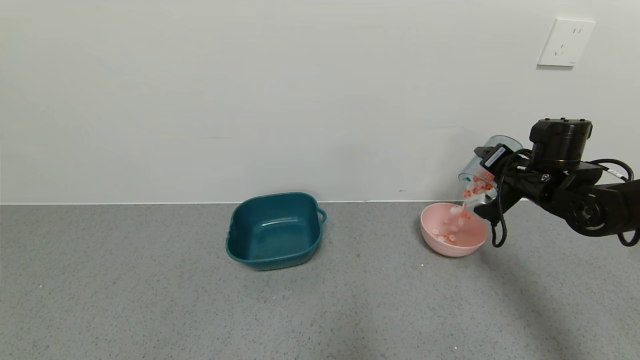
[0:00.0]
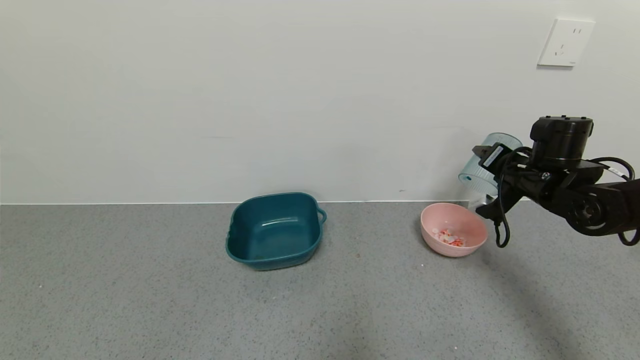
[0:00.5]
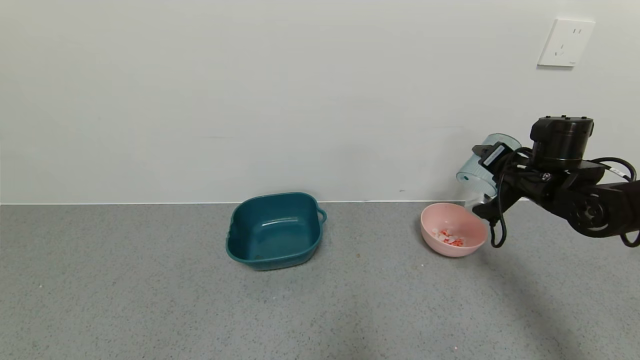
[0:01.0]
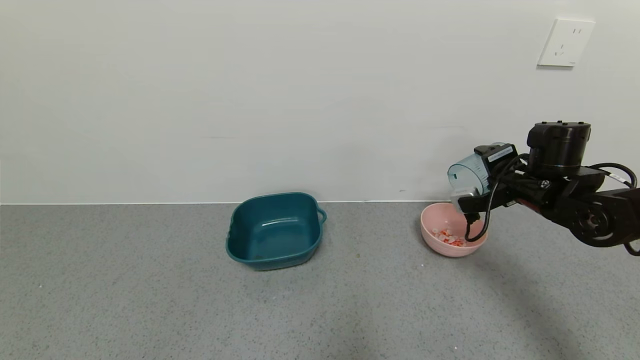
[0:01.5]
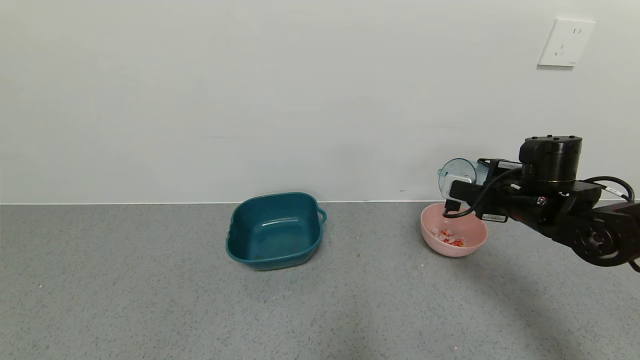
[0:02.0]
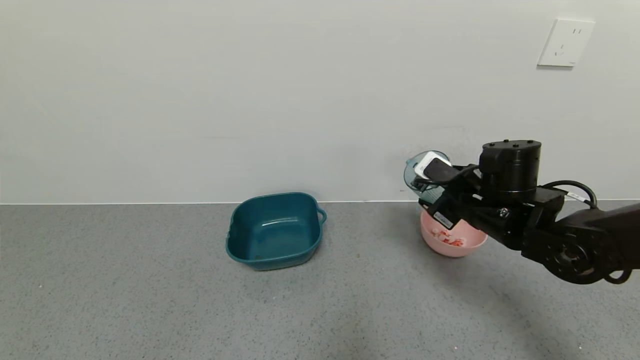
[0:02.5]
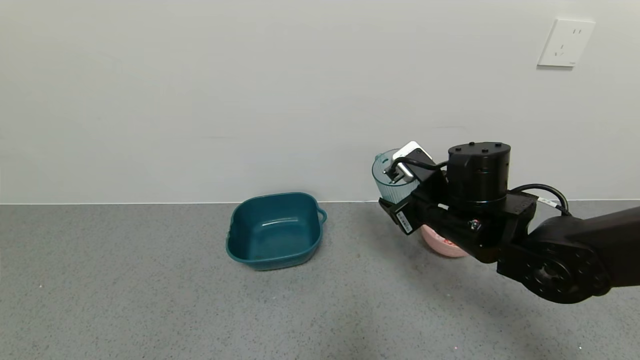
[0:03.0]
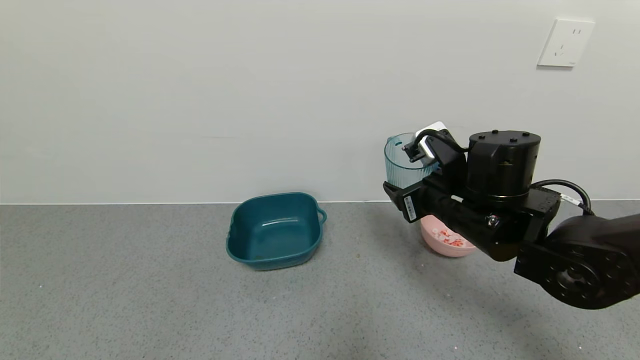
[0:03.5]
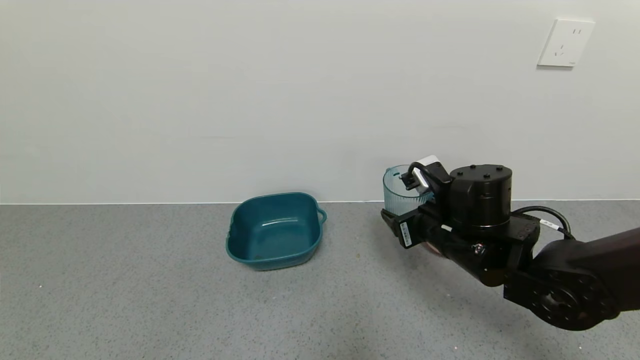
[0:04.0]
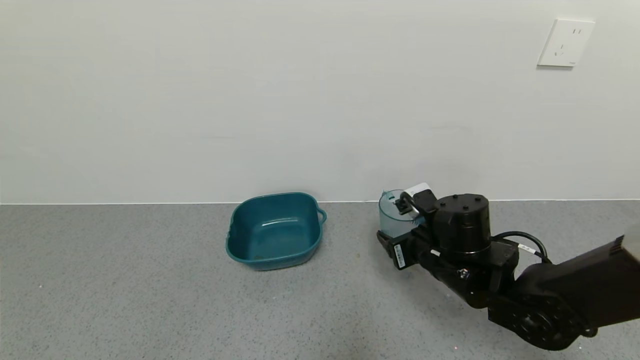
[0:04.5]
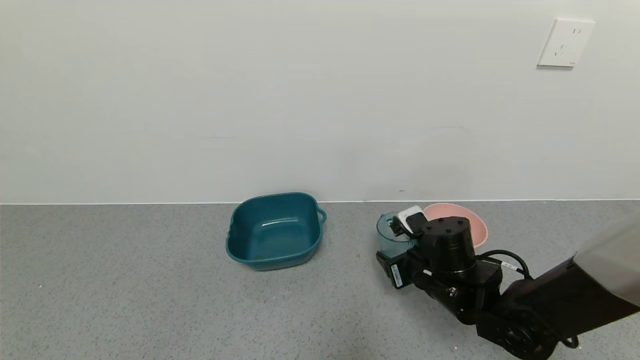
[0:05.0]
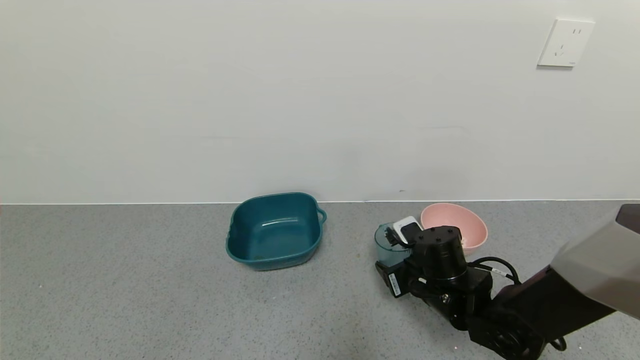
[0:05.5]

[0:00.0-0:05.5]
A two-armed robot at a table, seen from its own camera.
Task of the whole recording: use a gripper to pick up the cup and pour the solid into a bowl or tray.
Step, 0:02.0 to 0:05.0: Place the glass cup with the right gripper.
0:00.0 to 0:02.0: The right gripper shifts by about 5 cm.
0:02.0 to 0:03.5: The right gripper travels to the left and backward by roughly 15 cm.
0:03.5 to 0:05.5: The right gripper heads downward, covering approximately 15 cm.
